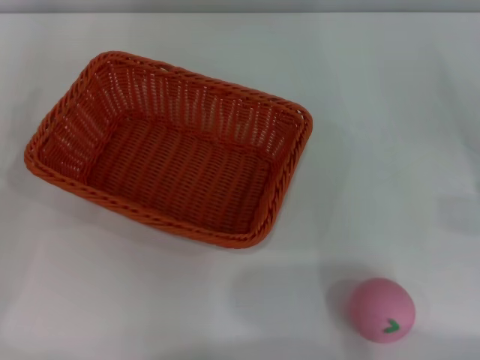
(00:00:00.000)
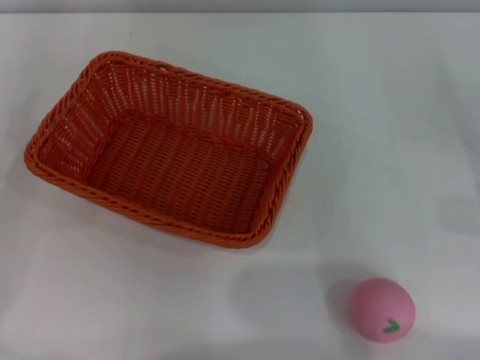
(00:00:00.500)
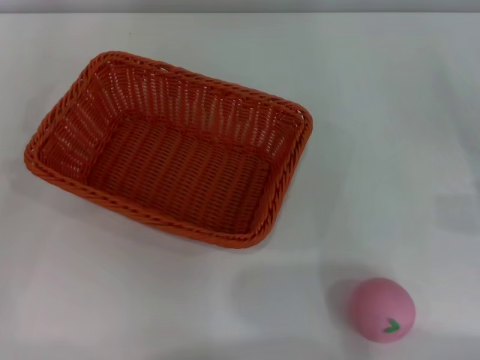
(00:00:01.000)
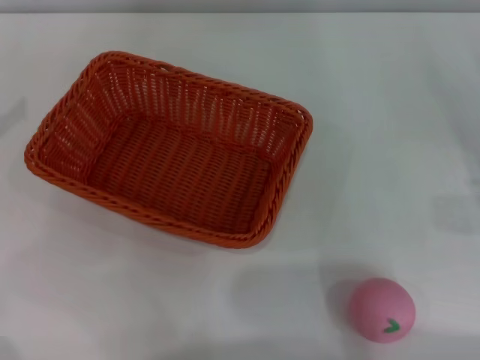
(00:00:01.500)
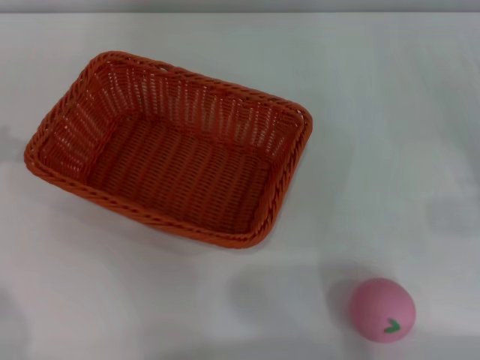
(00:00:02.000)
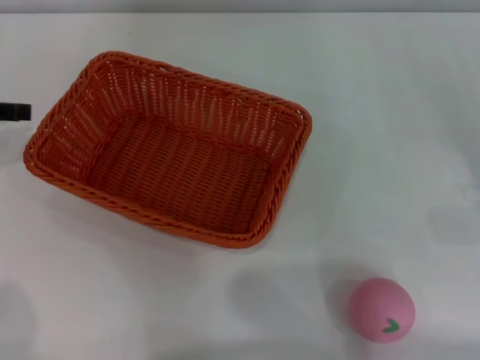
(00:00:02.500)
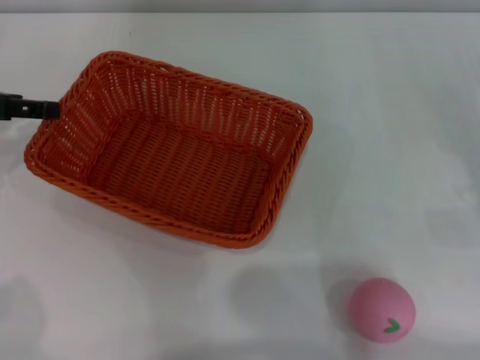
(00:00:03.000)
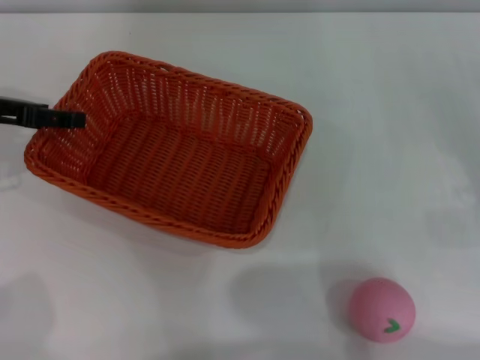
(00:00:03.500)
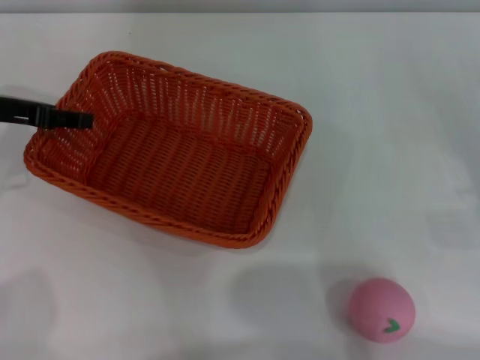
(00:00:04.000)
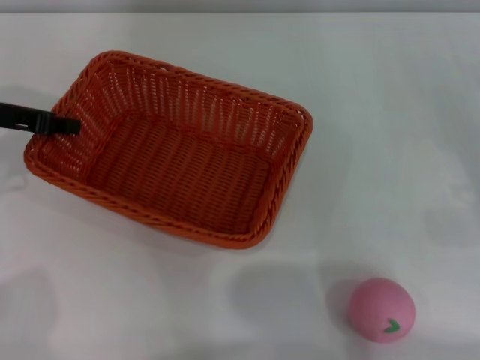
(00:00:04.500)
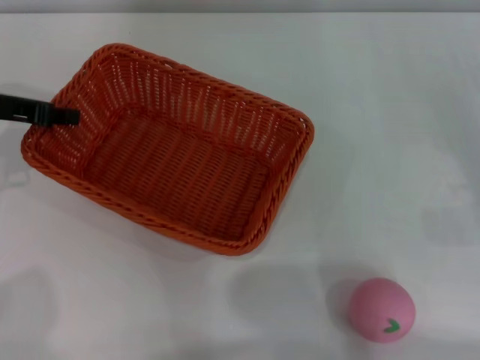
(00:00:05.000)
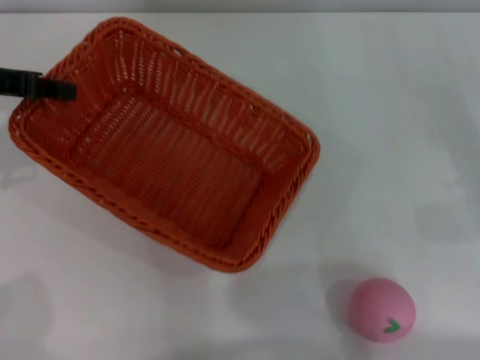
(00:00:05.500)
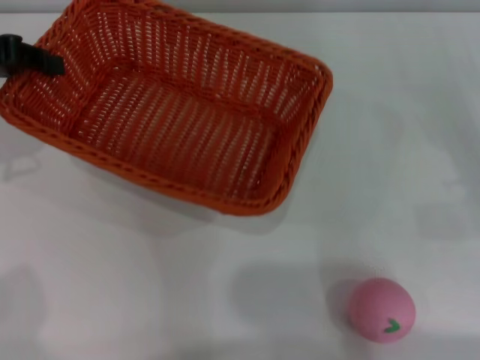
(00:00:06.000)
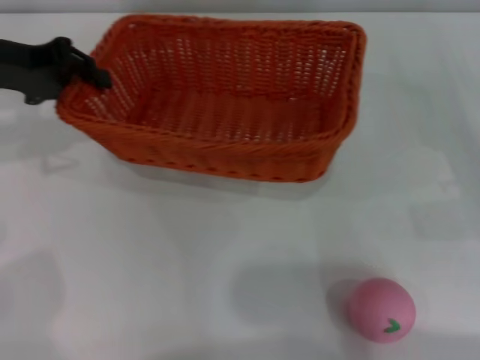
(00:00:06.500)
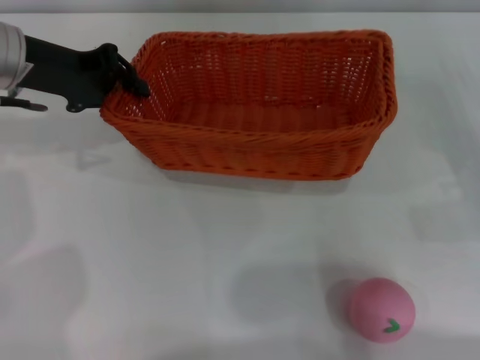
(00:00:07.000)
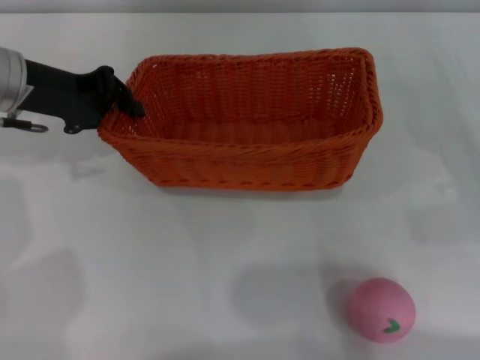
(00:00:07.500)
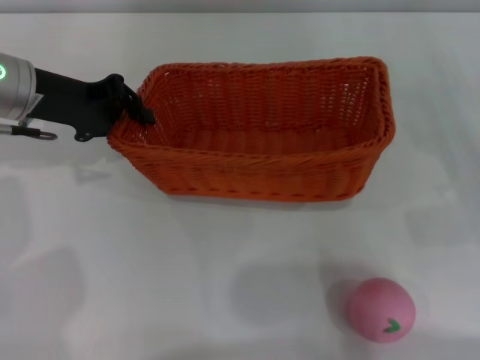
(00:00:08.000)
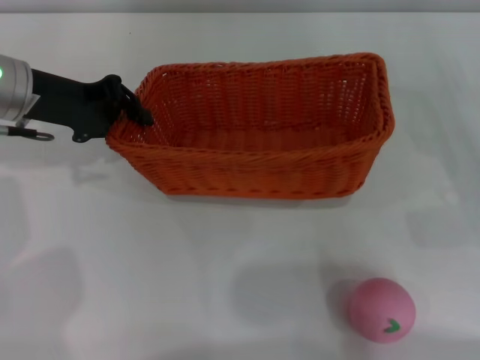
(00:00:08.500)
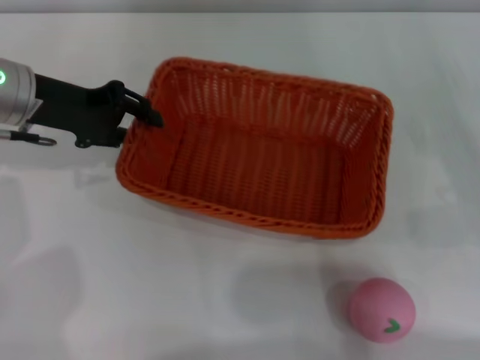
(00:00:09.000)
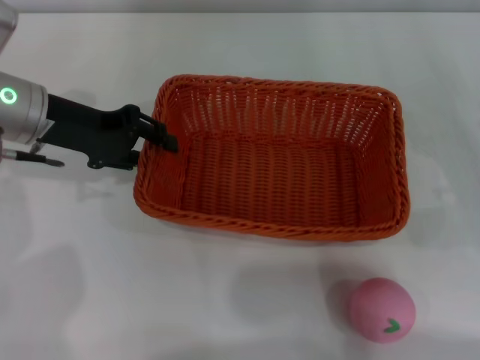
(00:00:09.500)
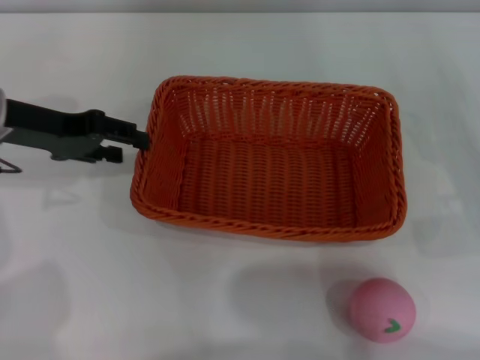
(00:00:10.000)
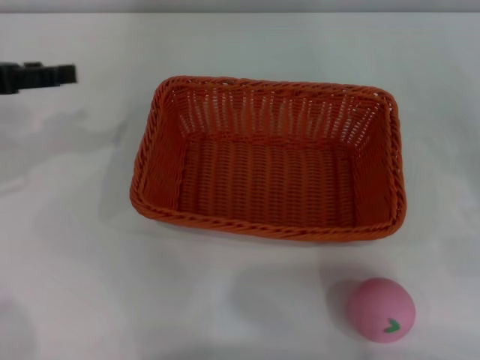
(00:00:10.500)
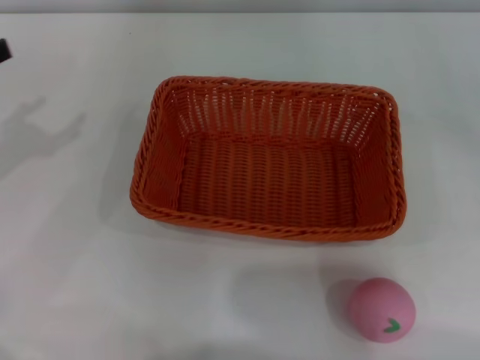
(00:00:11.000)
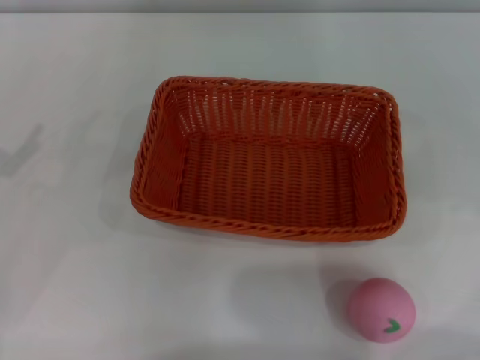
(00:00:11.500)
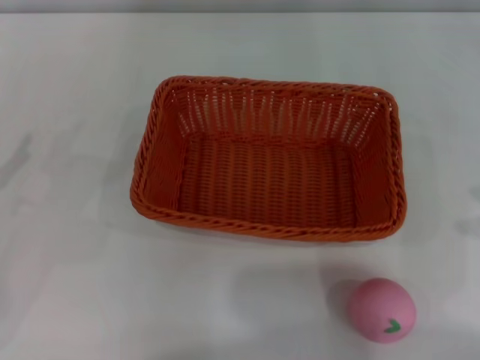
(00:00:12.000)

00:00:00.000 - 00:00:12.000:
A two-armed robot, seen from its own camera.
Step, 00:00:00.000 - 00:00:05.000: Pick up the light basket with the left gripper.
00:00:02.000 - 00:00:04.000: The left gripper moves to the right and downward, approximately 10 cm.
00:00:04.000 - 00:00:06.000: The left gripper heads upward, covering approximately 5 cm, and closes up.
00:00:06.000 - 00:00:08.000: The left gripper travels to the right and downward by roughly 10 cm.
00:00:08.000 - 00:00:10.000: The left gripper opens its fingers.
00:00:10.000 - 00:00:12.000: The left gripper goes some 20 cm to the left and backward, and opens up.

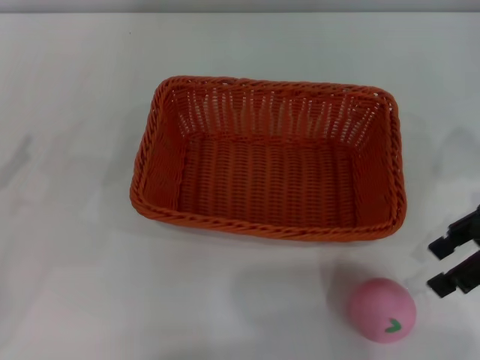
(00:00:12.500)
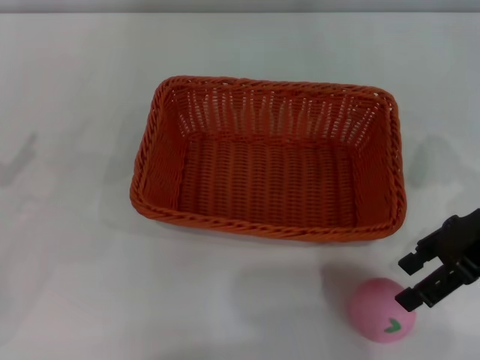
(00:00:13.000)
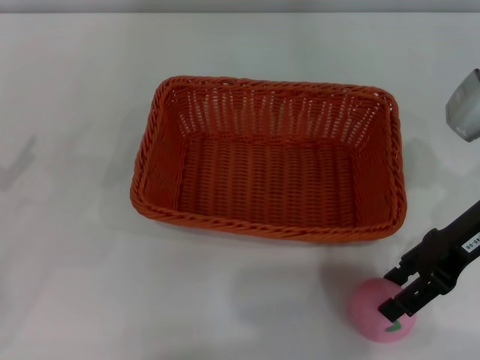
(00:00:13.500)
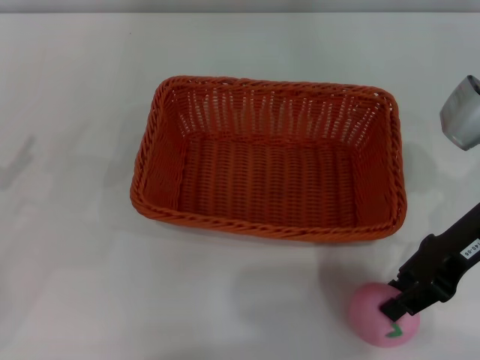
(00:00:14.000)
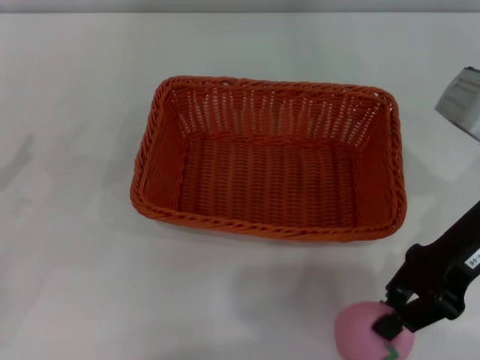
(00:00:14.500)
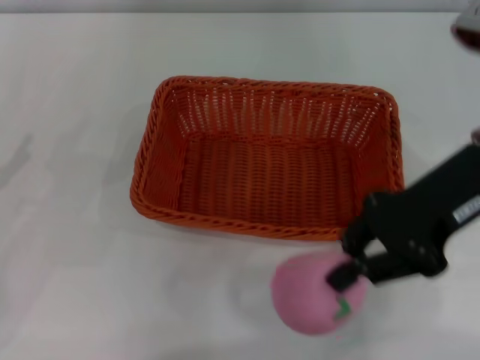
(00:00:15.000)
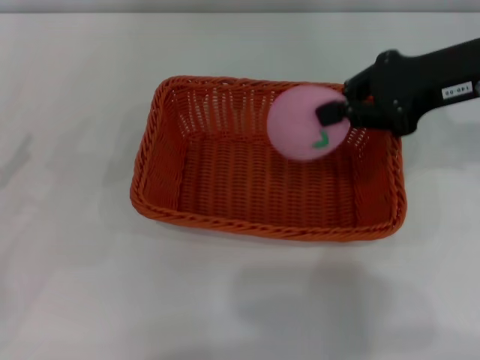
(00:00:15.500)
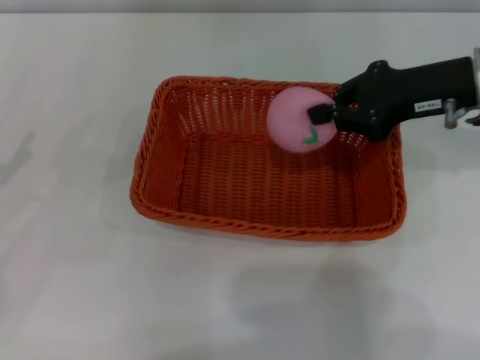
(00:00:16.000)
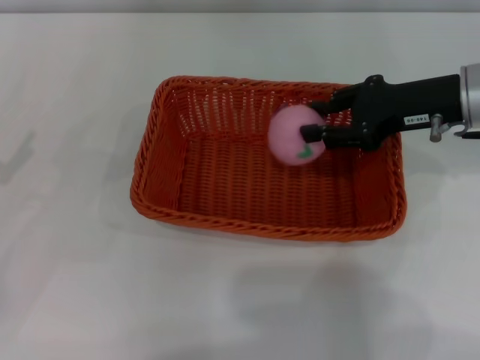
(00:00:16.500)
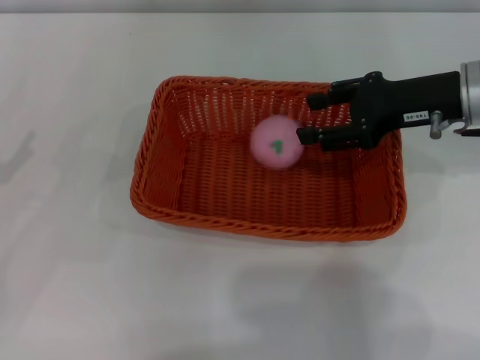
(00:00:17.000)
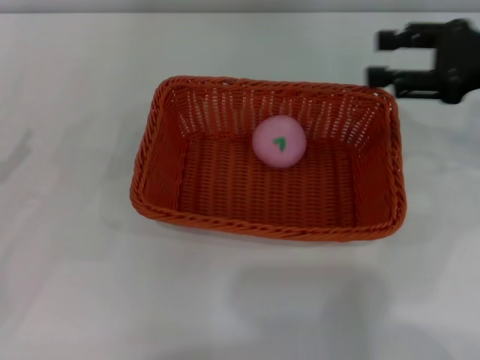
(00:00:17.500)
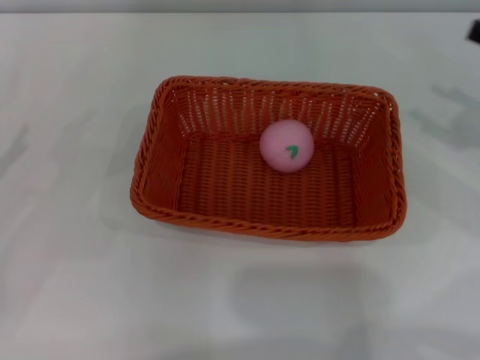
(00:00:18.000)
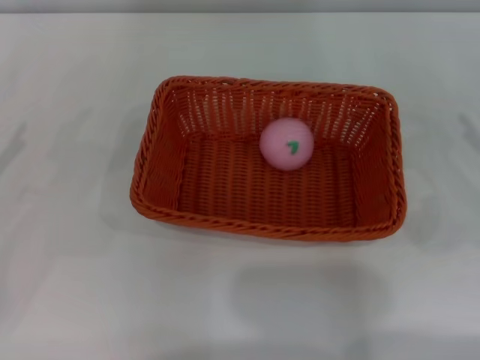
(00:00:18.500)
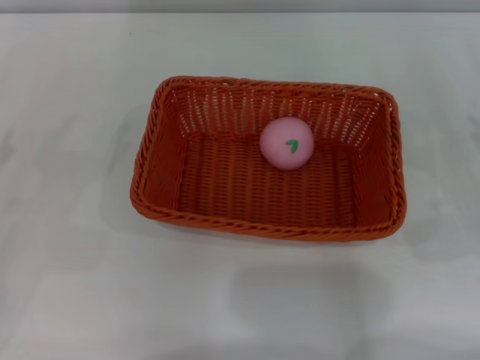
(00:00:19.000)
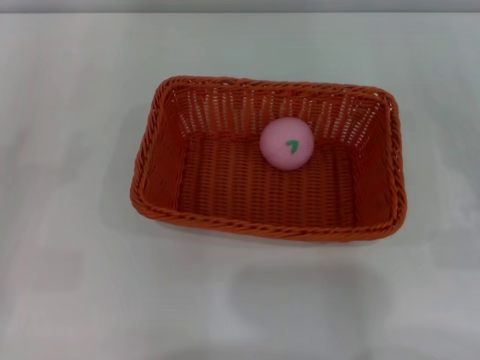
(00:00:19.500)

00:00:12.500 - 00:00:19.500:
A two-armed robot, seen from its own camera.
00:00:12.500 - 00:00:14.500: The right gripper heads to the left, covering approximately 5 cm, and closes its fingers.
00:00:14.500 - 00:00:16.000: The right gripper is displaced forward by approximately 5 cm.
00:00:16.000 - 00:00:17.500: The right gripper is displaced to the right by some 5 cm, and opens up.
00:00:17.500 - 00:00:19.500: The right gripper shifts about 20 cm downward, backward and to the right.
